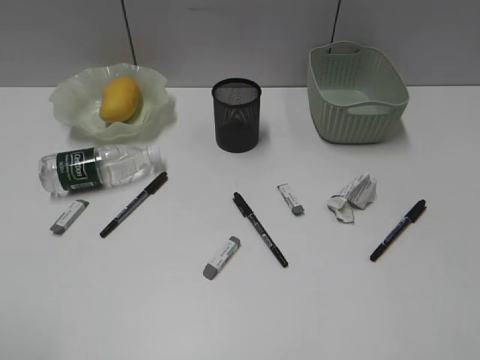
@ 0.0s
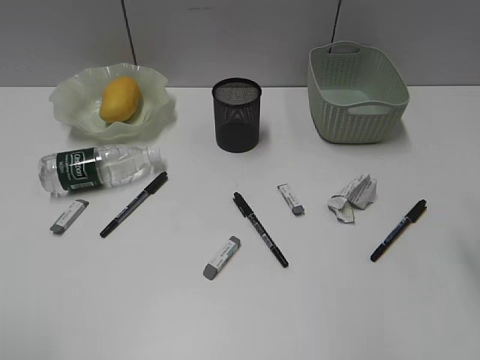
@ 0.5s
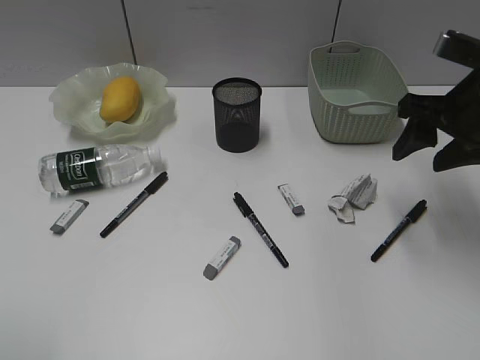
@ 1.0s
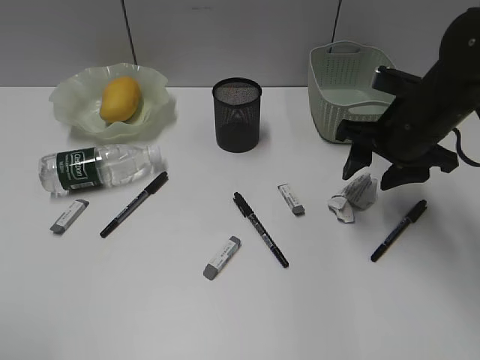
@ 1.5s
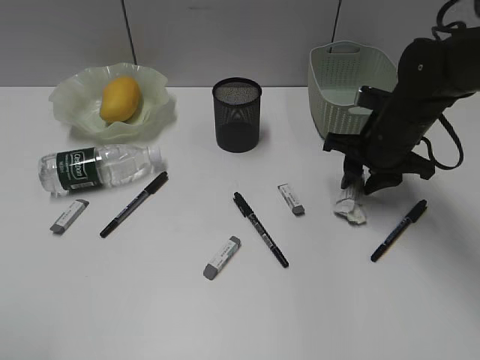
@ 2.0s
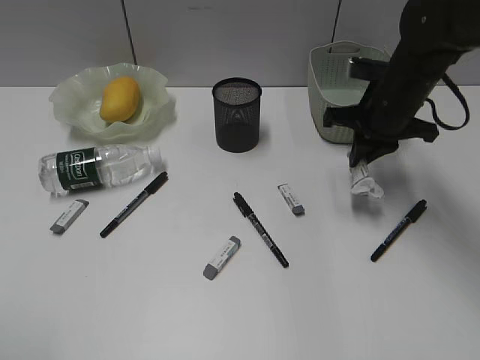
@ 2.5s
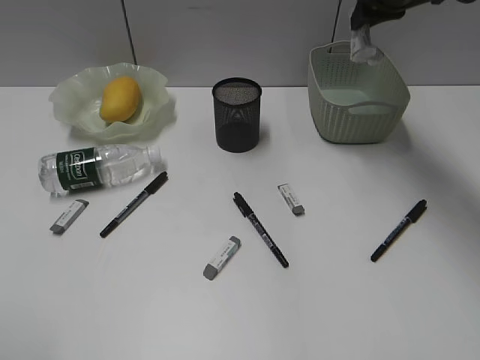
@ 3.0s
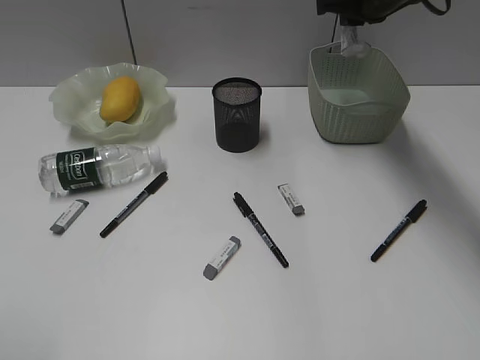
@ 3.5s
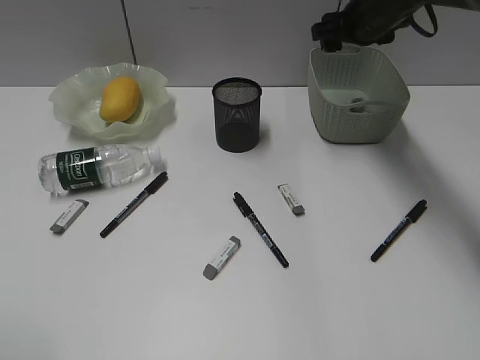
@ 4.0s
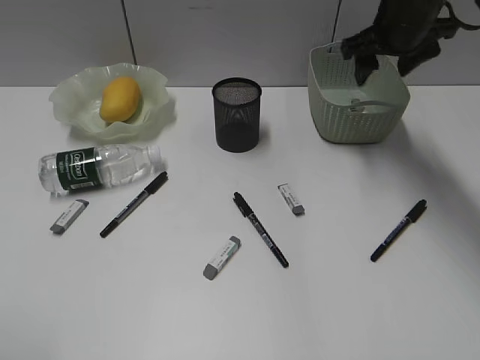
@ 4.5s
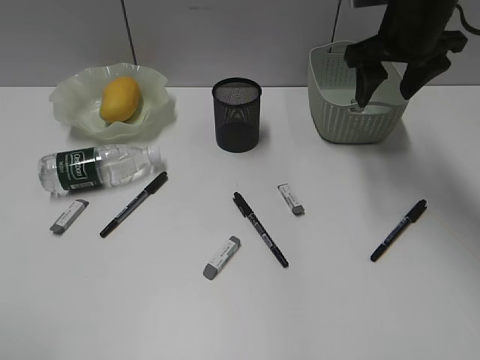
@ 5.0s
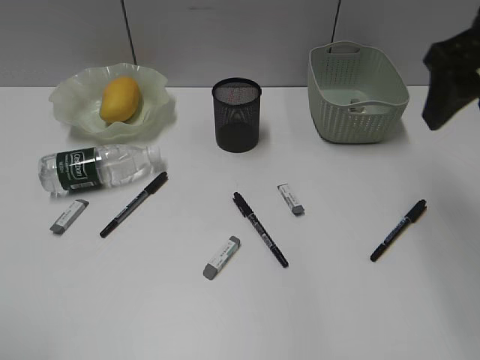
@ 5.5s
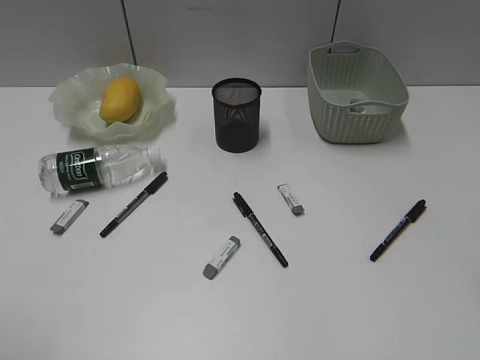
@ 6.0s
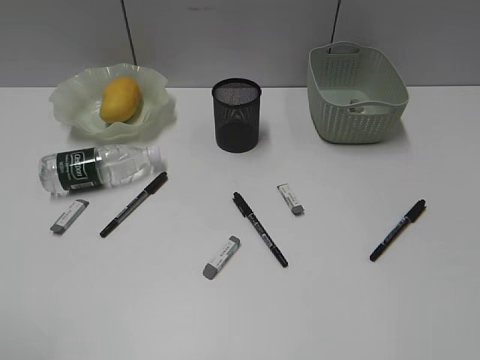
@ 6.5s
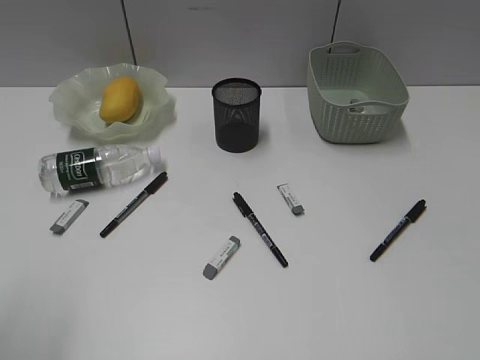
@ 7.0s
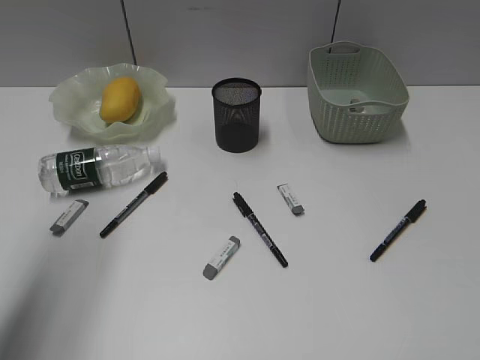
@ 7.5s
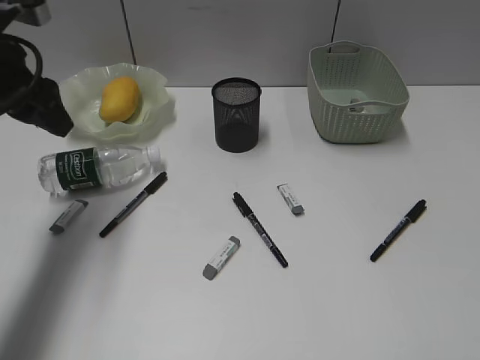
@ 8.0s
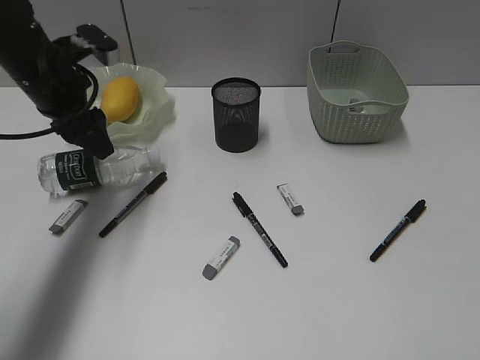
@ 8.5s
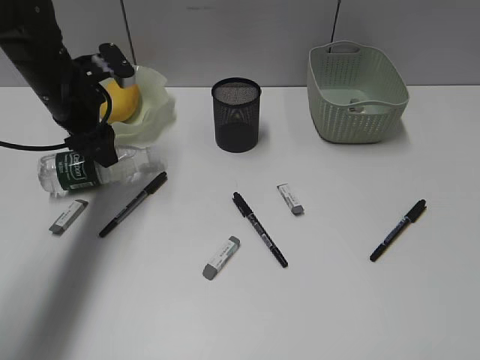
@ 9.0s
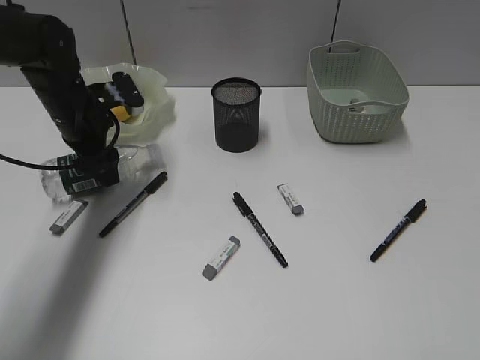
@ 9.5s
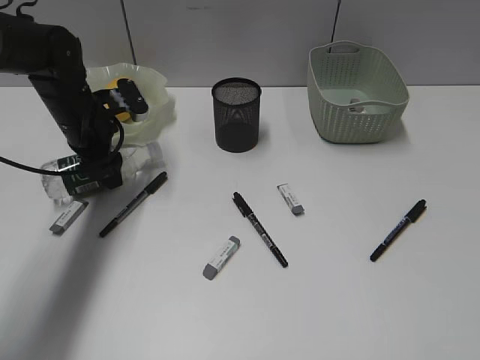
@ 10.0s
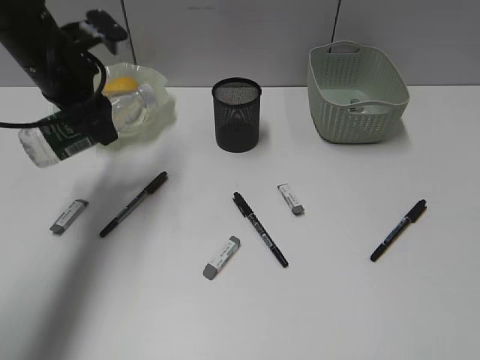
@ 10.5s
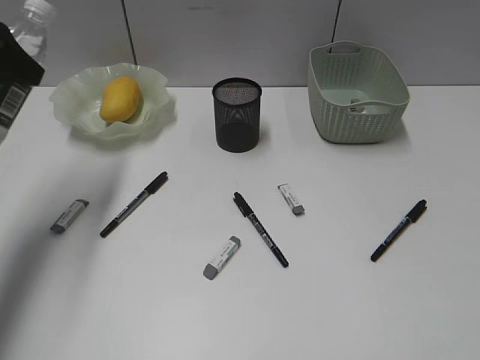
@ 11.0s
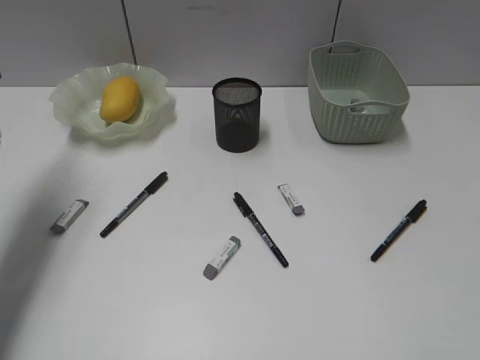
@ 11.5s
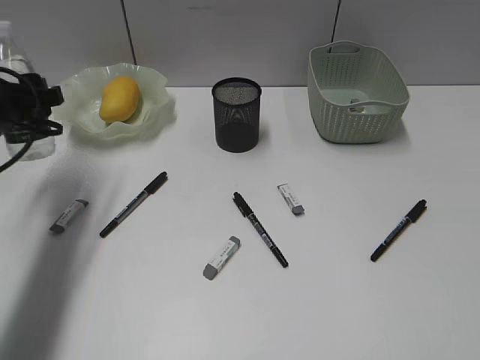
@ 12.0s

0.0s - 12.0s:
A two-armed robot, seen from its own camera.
Step, 0.0s - 2.0s: Grasp the waste paper with right gripper.
Step, 2.5s - 4.0s: Place the waste paper in the basket with right gripper.
Step, 4.5s - 10.0s: Grasp the bottle with left gripper.
0.0s - 2.0s: The right gripper travels forward and downward by some 40 cm, and closes.
2.0s - 4.0s: The right gripper shifts roughly 15 cm forward and upward, and opens.
4.0s - 6.0s: The right gripper is displaced backward and upward by some 40 cm.
6.0s - 8.0s: The left gripper travels forward by some 30 cm.
8.0s - 10.0s: The left gripper is displaced downward and forward by roughly 15 cm.
10.0s - 12.0s: The left gripper is displaced backward and to the left by some 10 cm, and moves roughly 15 cm upward and comes back.

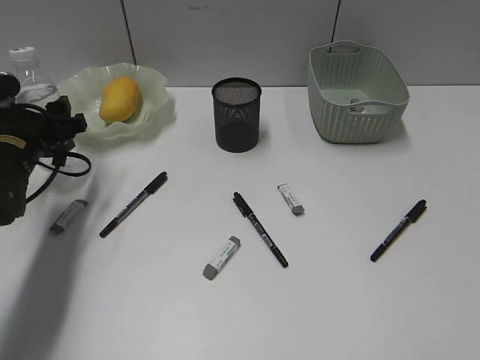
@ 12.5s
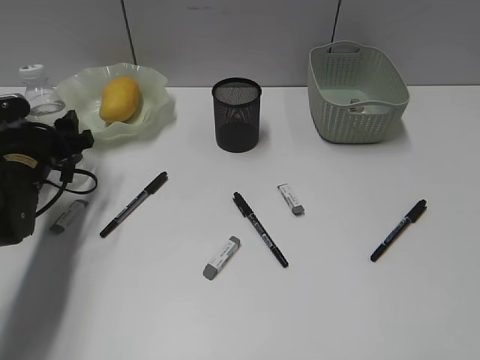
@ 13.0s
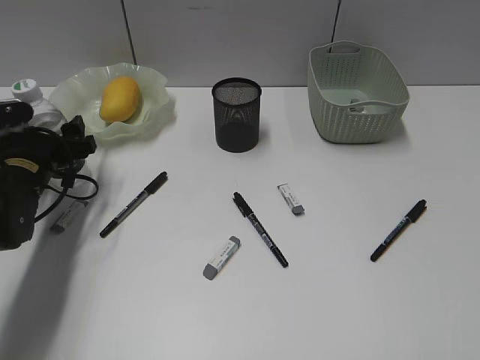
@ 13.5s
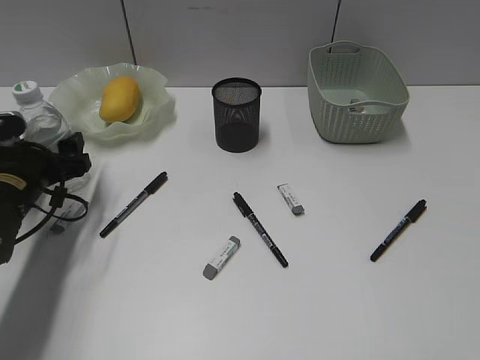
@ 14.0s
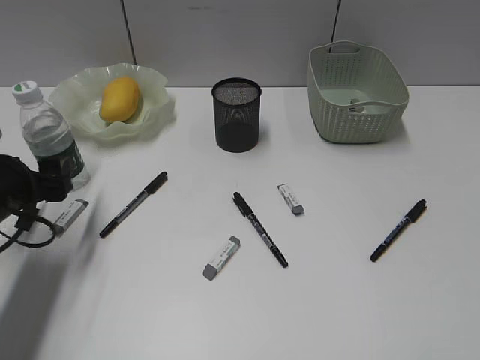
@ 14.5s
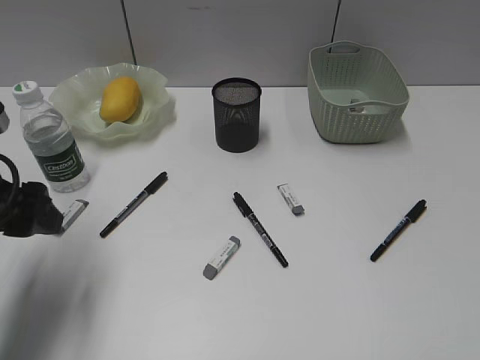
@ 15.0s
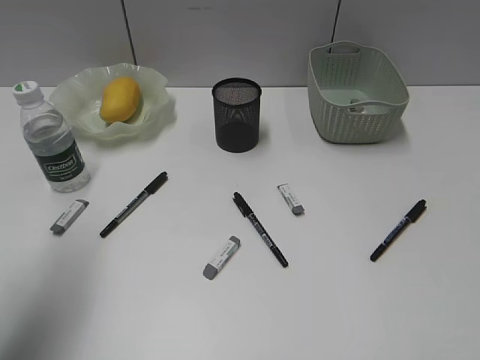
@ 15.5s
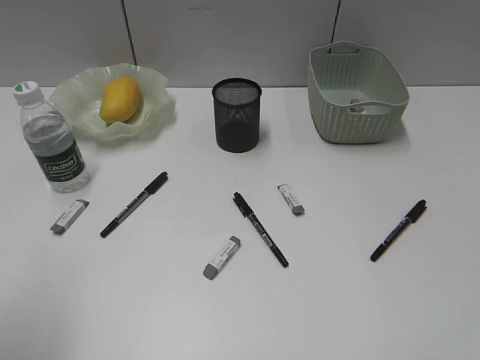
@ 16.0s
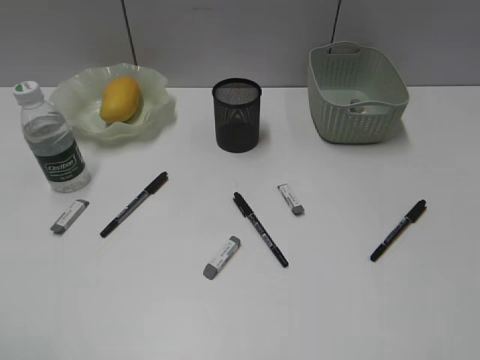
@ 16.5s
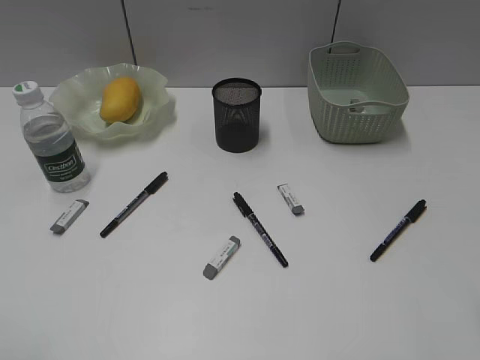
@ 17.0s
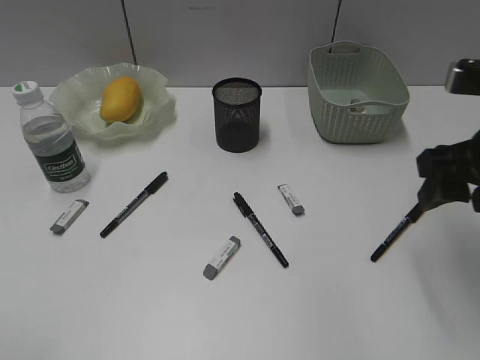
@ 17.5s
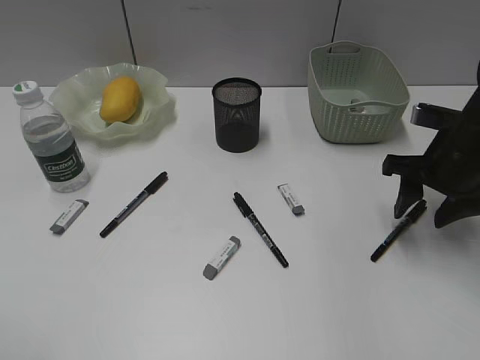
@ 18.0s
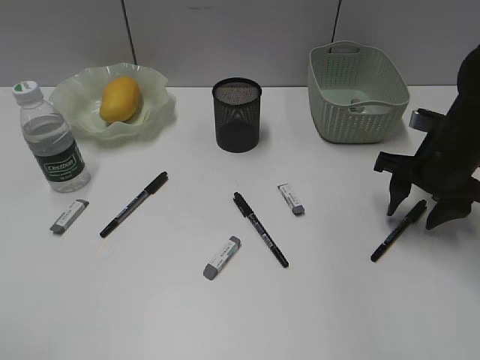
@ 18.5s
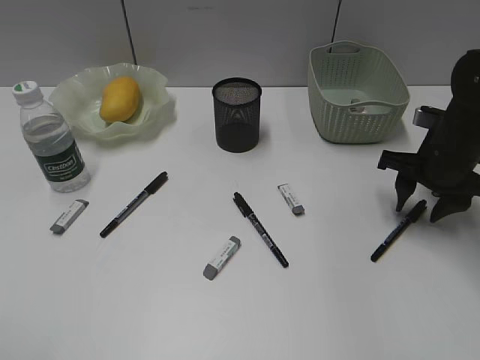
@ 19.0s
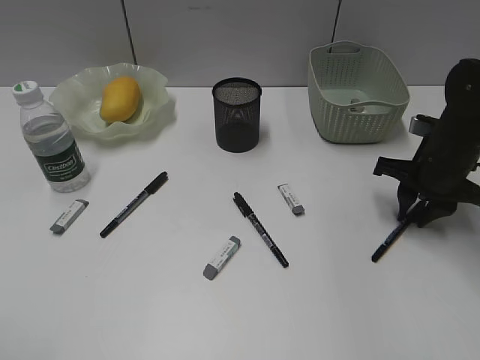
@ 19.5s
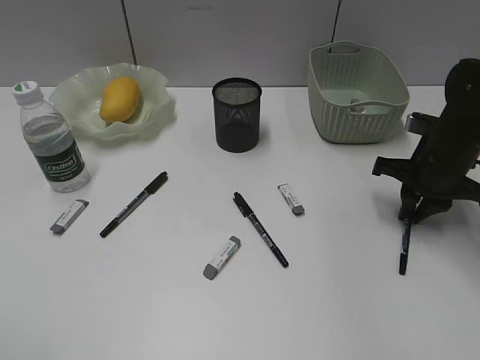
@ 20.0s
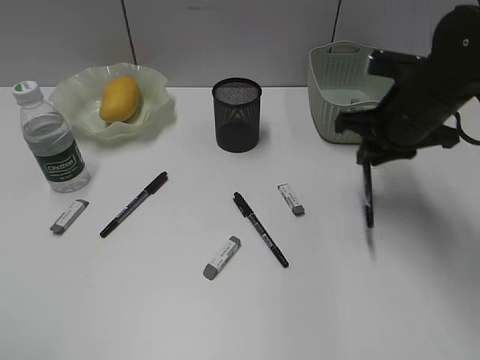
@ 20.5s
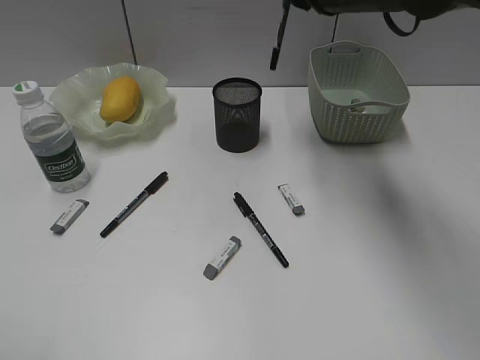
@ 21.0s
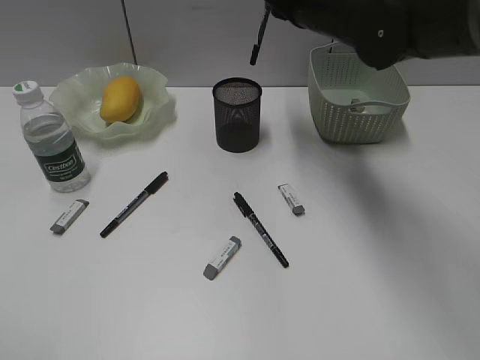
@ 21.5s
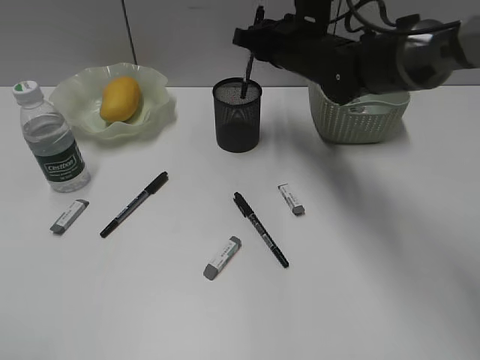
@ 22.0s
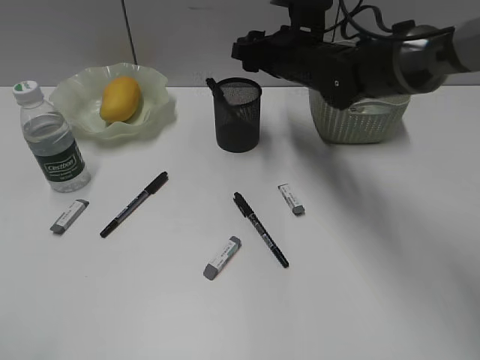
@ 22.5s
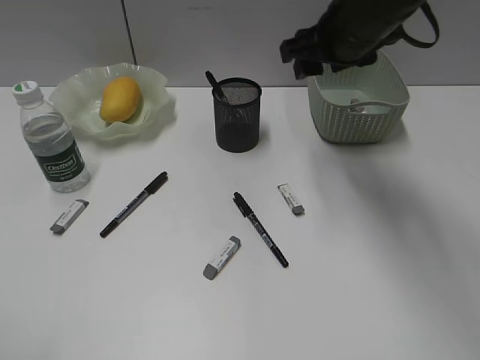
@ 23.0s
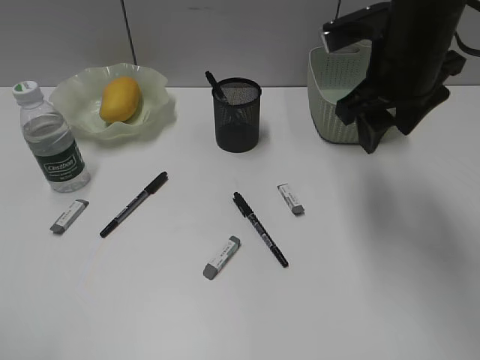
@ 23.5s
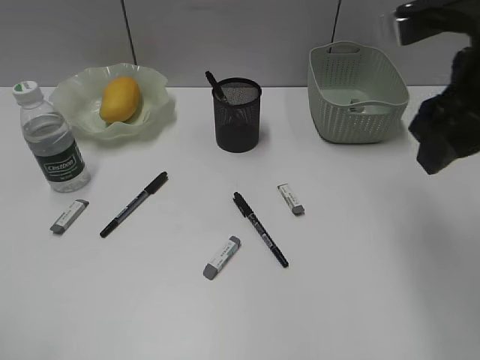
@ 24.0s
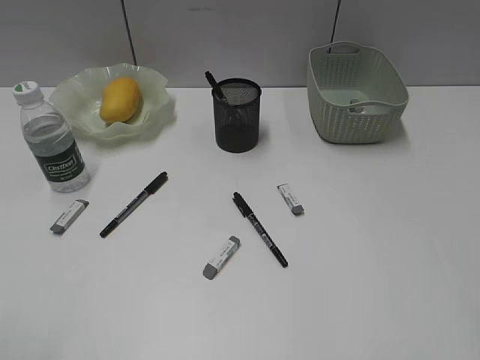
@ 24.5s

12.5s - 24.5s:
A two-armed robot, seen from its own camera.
Step, 14.5s - 20.0s: Grasp the black pen with right gripper.
Step, 20.5s - 22.5s: Place the black pen in pen holder with right gripper.
12.5s - 14.5s: The left gripper shifts approximately 10 cm backward.
14.5s - 16.5s: The left gripper goes approximately 30 cm backward and upward.
16.5s - 18.5s: The right gripper is displaced forward and downward by some 35 cm.
18.5s - 20.5s: The right gripper heads to the left and upward, covering about 10 cm, and closes its fingers.
20.5s - 22.5s: The right gripper moves to the left and forward, approximately 15 cm, travels upward and back again, approximately 10 cm each way, and opens up.
22.5s - 24.5s: The right gripper is displaced backward, to the right and upward by approximately 40 cm.

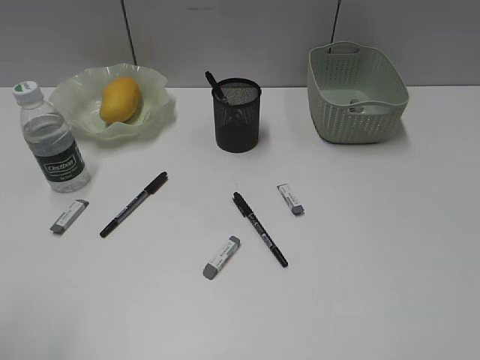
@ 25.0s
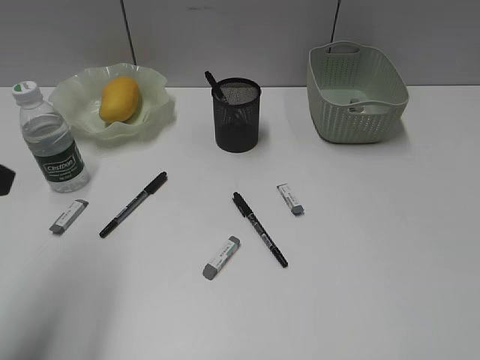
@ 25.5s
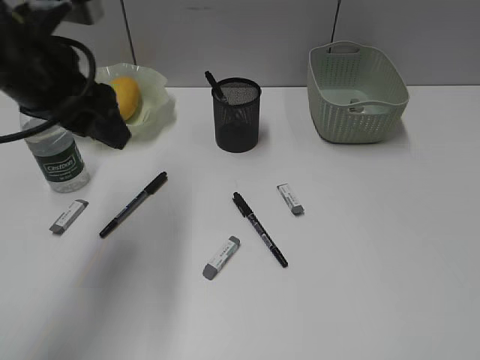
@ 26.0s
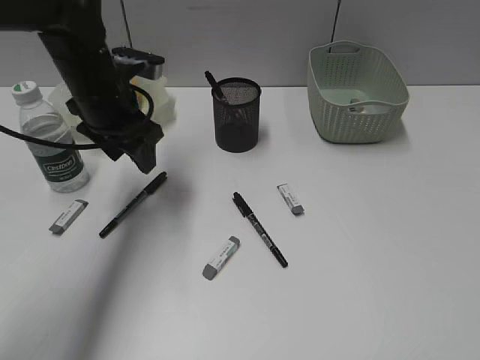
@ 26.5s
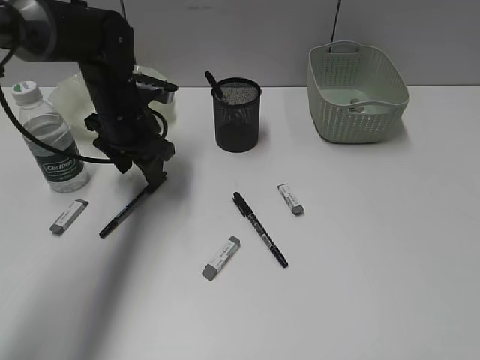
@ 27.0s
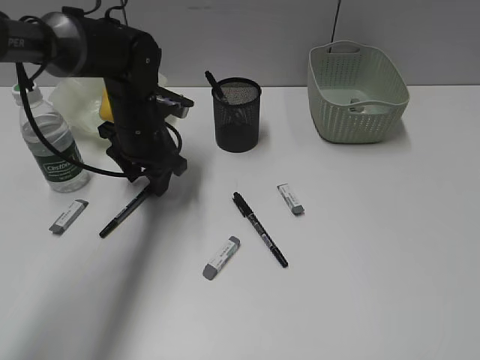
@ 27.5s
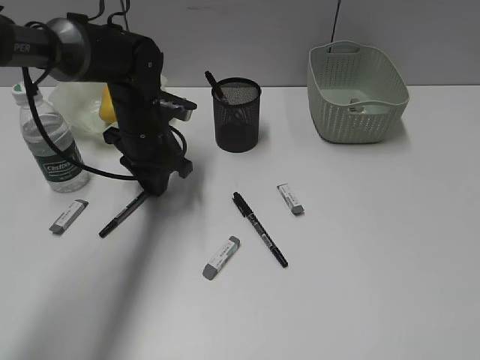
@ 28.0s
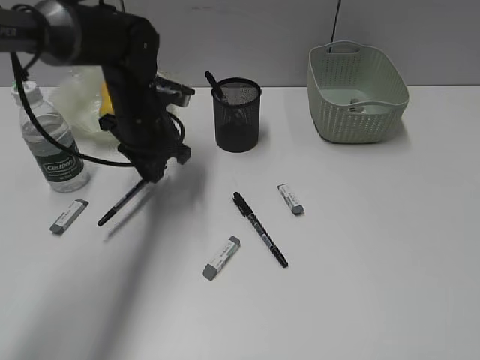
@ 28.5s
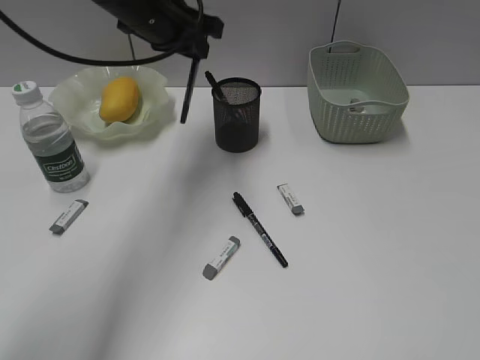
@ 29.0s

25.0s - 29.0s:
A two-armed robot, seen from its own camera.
Step, 25.0s - 28.0s: Grasp the black pen with left gripper.
25.0s - 27.0s: The left gripper shifts approximately 40 cm forward, downward and to the right.
27.0s - 29.0s: The left gripper moves upward, about 15 cm, and closes its fingers.
